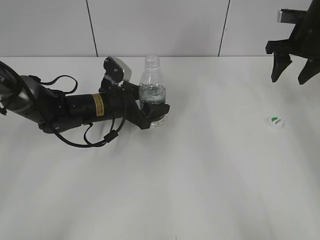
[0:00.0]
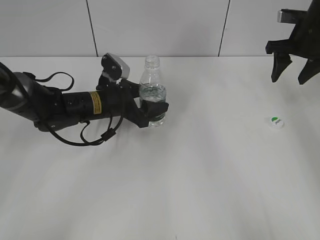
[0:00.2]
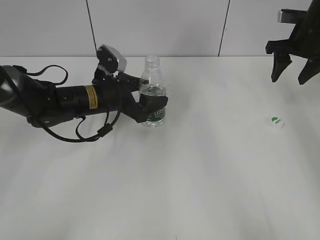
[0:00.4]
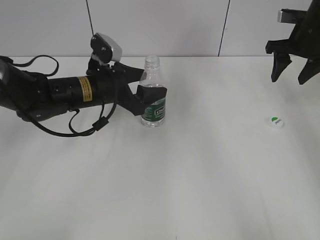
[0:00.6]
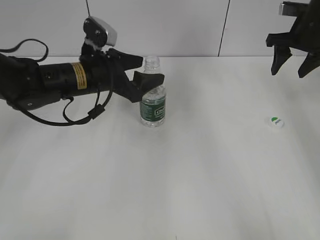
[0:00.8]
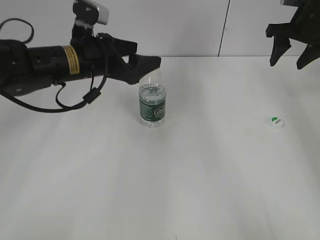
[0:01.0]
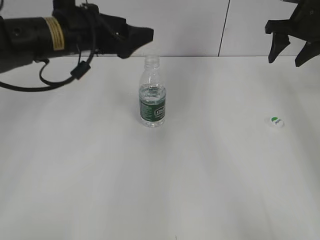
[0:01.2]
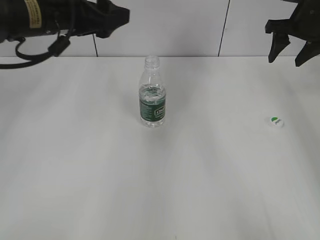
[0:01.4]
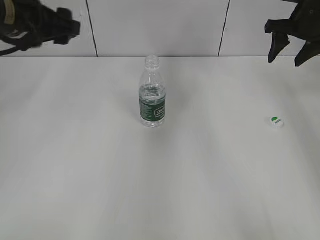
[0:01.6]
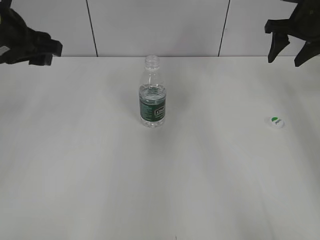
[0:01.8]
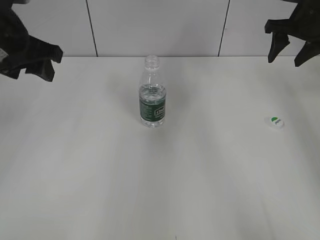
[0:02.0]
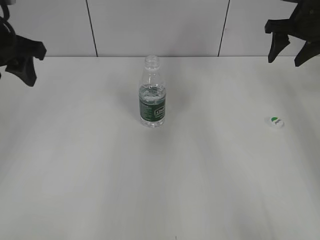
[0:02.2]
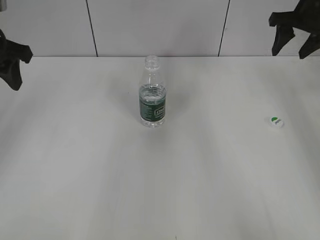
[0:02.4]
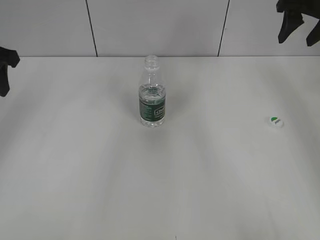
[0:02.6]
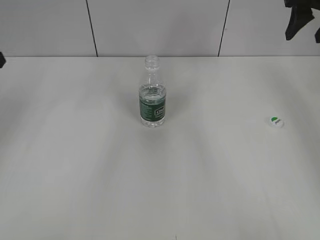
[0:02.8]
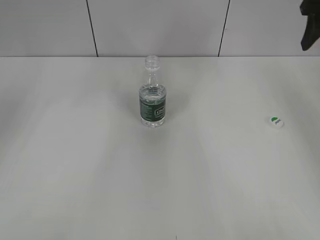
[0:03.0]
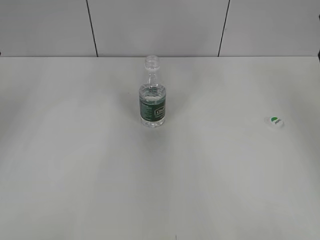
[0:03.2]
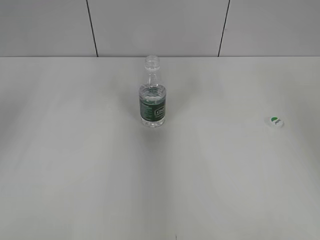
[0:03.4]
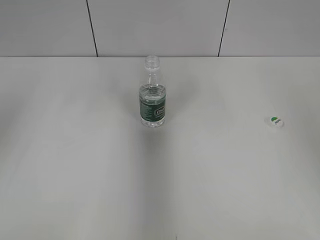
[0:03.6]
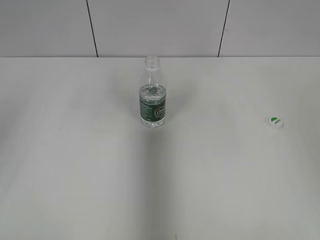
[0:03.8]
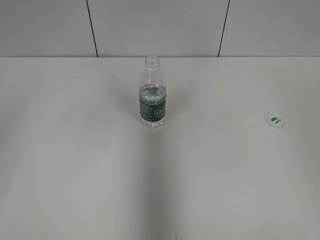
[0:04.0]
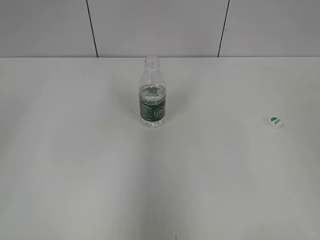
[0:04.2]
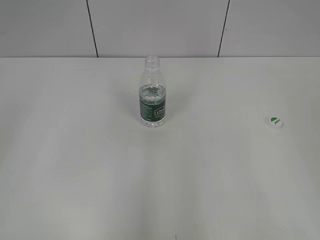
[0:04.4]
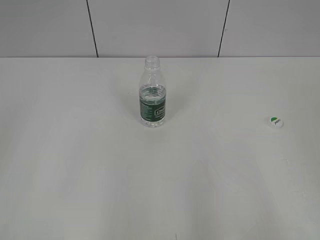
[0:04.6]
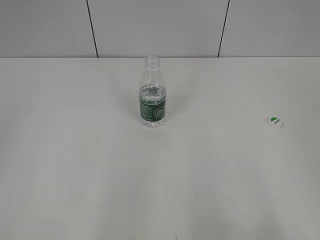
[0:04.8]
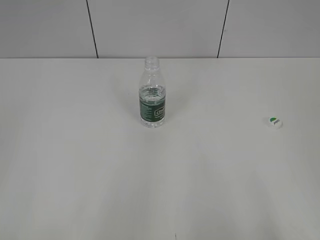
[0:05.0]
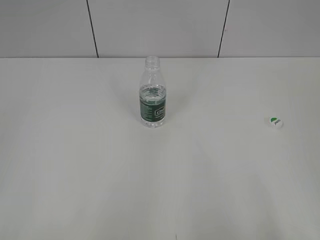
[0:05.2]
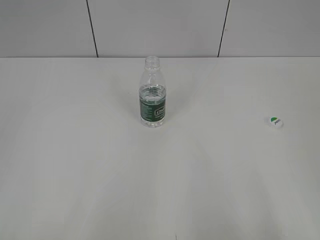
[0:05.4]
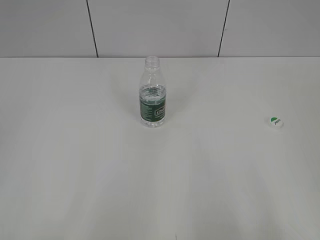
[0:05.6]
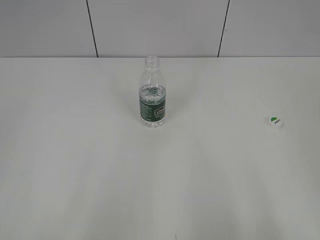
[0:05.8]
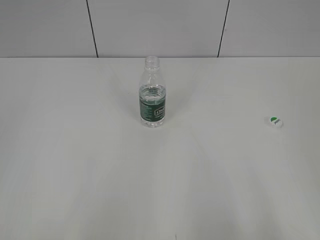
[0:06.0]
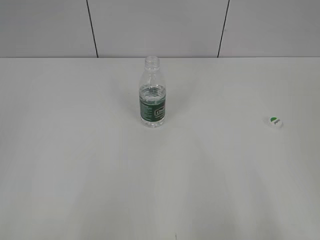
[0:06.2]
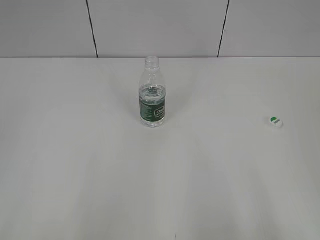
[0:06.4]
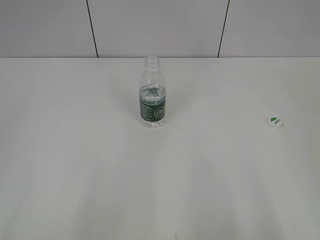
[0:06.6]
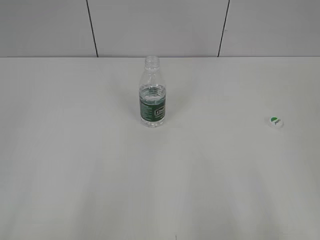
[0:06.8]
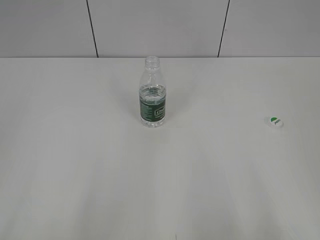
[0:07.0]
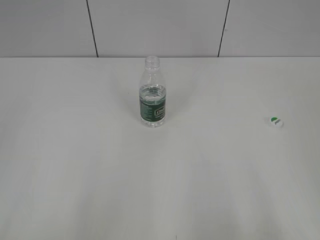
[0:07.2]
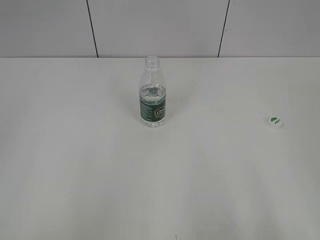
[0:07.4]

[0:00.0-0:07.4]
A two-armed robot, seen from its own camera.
0:00.0 to 0:01.4: The left gripper shifts approximately 20 cm upward.
0:01.4 to 0:03.0: The right gripper goes roughly 10 cm backward and upward; the left gripper goes roughly 20 cm to the left.
0:03.0 to 0:04.4: The right gripper travels backward by some 30 cm.
